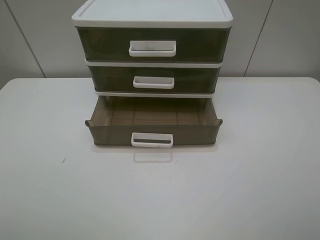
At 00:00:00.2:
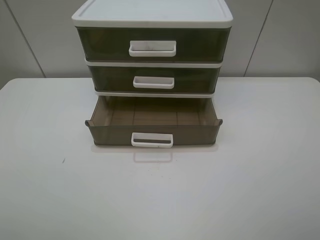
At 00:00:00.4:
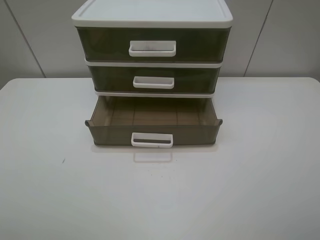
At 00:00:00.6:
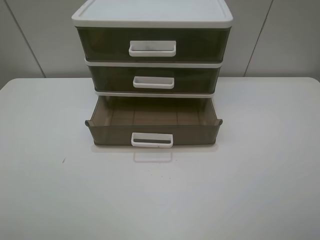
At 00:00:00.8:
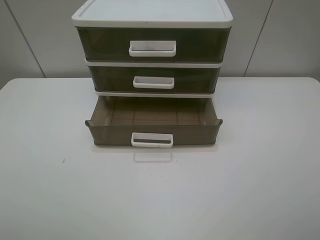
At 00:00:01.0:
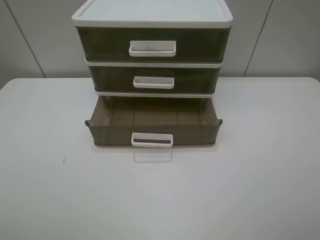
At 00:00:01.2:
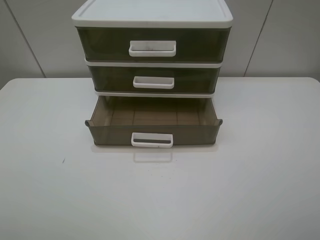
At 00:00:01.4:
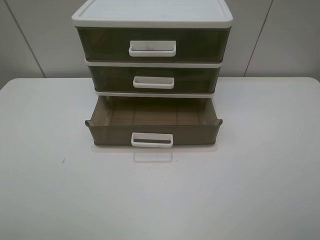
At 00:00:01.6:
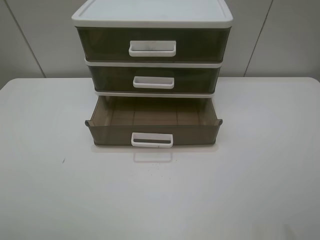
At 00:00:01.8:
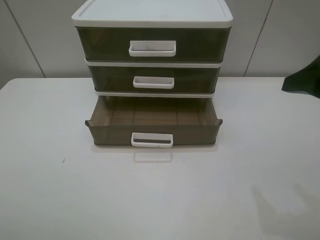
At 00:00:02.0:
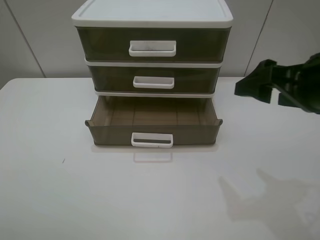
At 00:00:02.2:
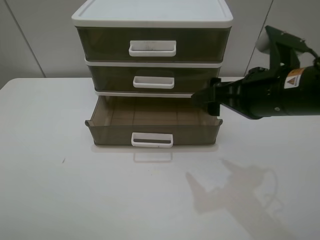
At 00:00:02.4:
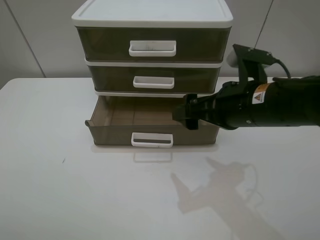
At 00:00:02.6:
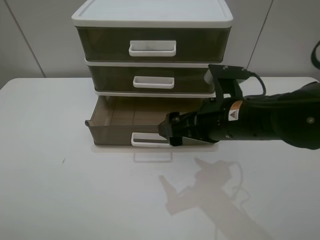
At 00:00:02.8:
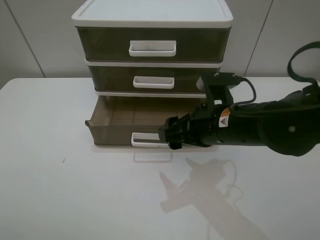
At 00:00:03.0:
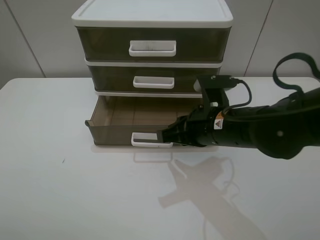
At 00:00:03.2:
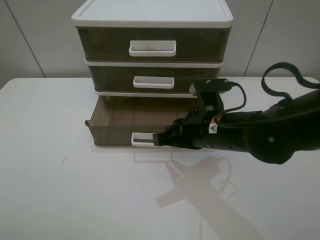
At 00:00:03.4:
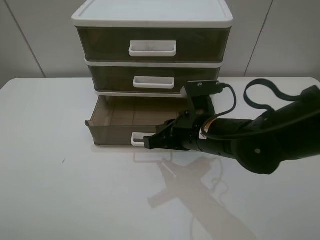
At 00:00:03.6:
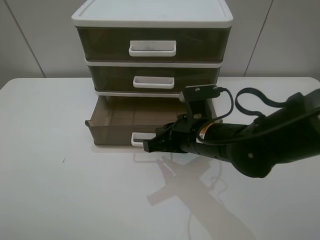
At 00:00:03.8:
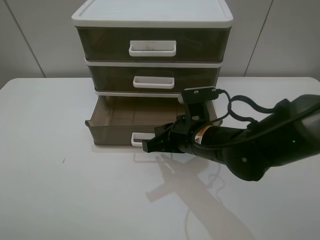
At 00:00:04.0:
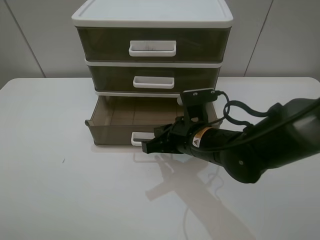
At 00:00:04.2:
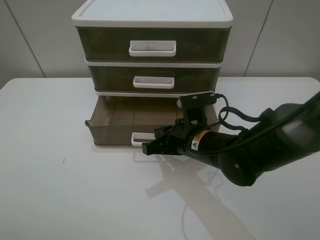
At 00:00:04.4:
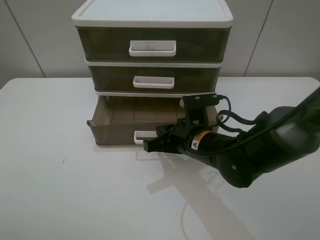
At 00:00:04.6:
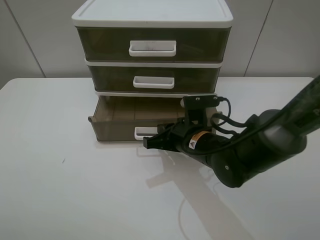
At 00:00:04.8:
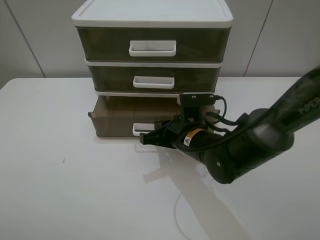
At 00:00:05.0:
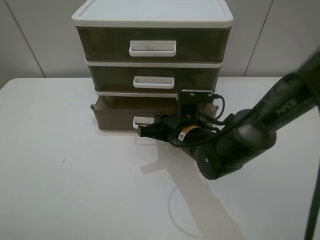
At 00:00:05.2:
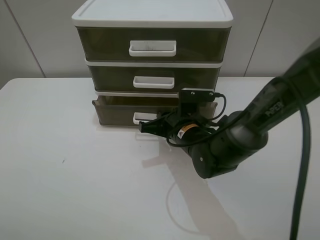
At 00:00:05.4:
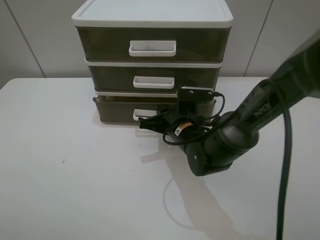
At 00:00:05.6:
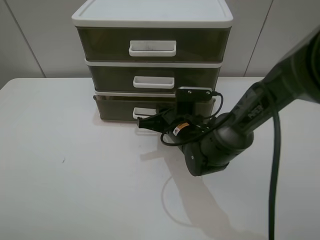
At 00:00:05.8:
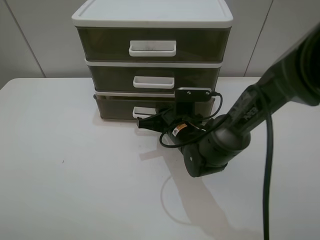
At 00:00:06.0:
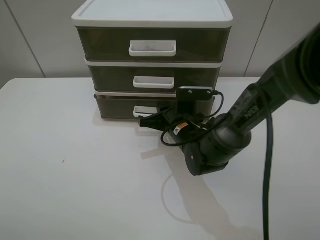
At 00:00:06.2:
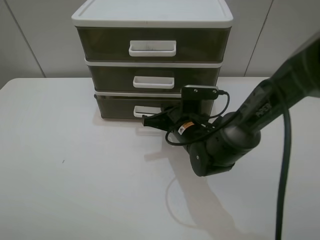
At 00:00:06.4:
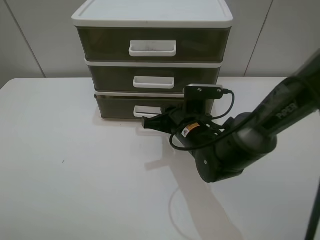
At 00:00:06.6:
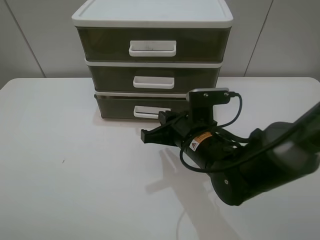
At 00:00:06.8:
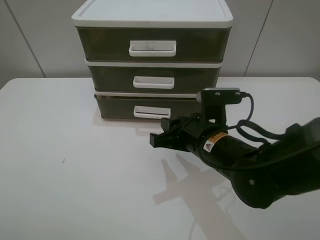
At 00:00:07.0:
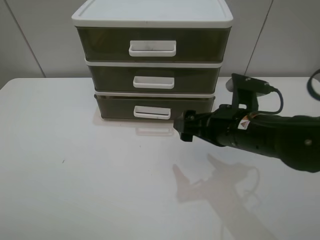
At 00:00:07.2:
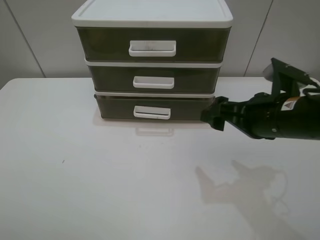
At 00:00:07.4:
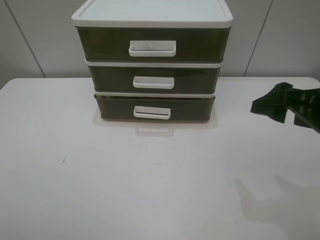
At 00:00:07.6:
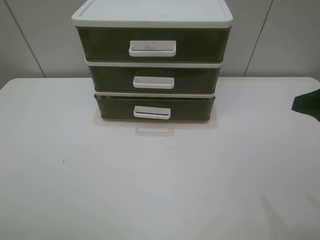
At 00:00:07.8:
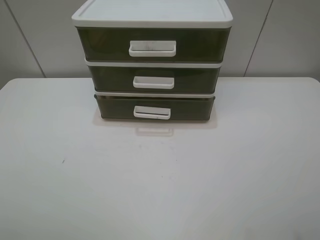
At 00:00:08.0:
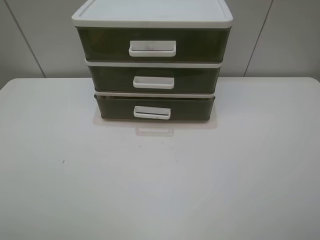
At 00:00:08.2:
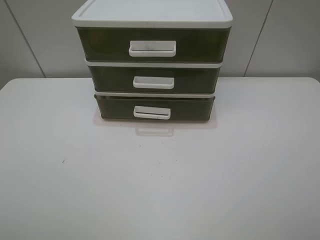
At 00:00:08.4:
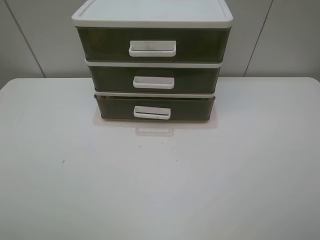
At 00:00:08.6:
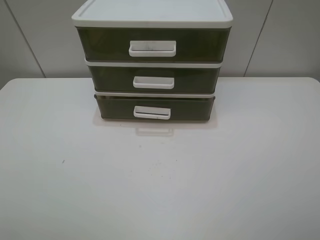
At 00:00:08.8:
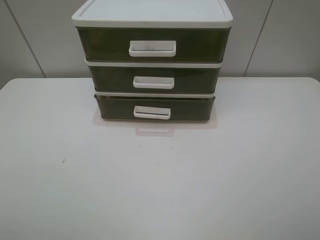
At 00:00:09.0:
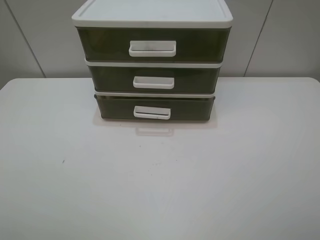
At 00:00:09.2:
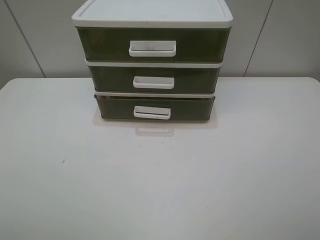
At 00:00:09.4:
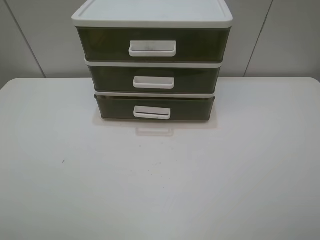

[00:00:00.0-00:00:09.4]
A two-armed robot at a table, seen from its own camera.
Task of the whole recording: close the bottom drawer.
Step, 00:00:00.0 to 00:00:04.0: Use the right gripper to contact the bottom layer of the storage cabinet.
Step, 00:00:04.2 to 00:00:06.0: Push the bottom drawer closed.
00:00:01.6 to 00:00:03.2: The right gripper goes about 30 cm to the left, forward and downward, and closes its fingers.
00:00:03.2 to 00:00:04.8: The right gripper travels downward by roughly 5 cm.
00:00:04.8 to 00:00:06.2: The grippers move only a little.
00:00:06.2 to 00:00:07.8: The right gripper is displaced upward, to the right and backward by approximately 40 cm, and opens its fingers.
